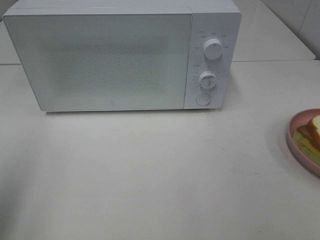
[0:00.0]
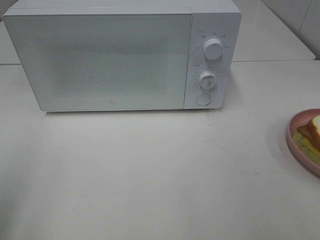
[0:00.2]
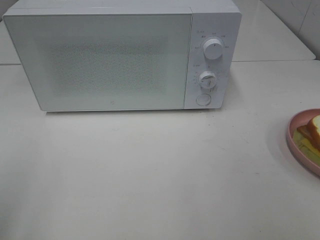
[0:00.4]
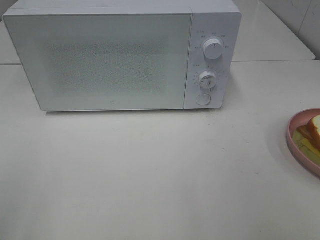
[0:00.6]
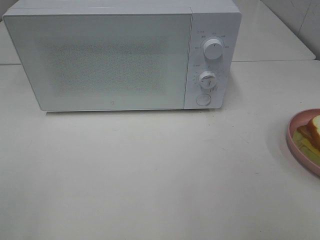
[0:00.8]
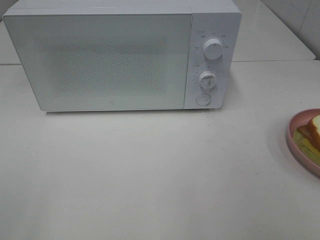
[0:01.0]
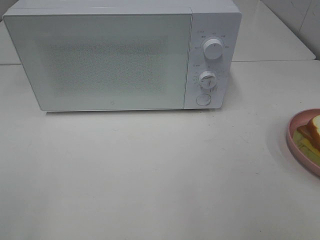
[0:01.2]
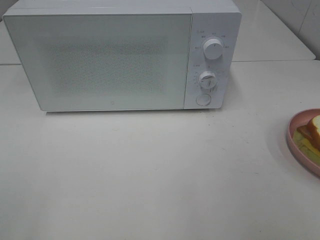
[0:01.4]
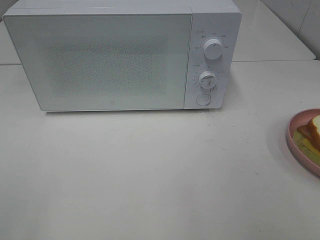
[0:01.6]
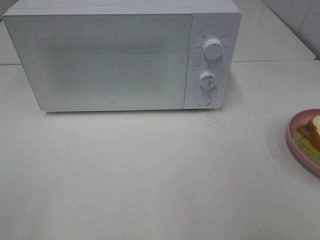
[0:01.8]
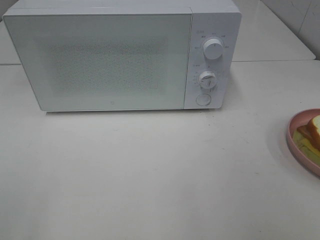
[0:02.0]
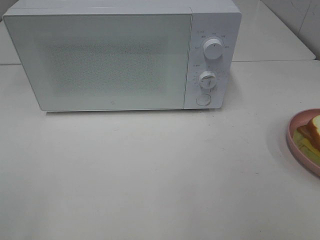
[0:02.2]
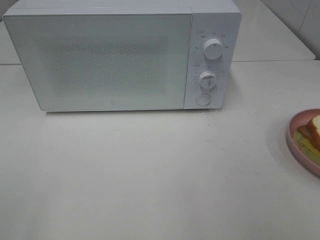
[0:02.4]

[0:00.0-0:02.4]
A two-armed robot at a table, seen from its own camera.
Task of the whole recording: Heat Sandwich.
0:00.0 to 0:01.2: The left gripper is displaced backward by roughly 15 cm.
0:01.2 to 0:02.4: The two grippers keep their place.

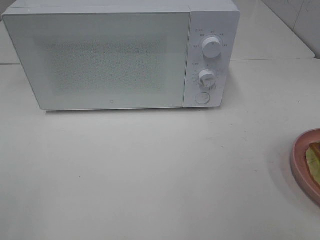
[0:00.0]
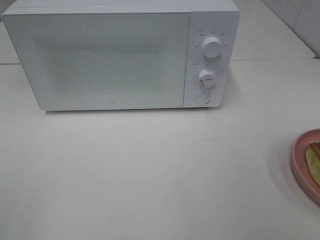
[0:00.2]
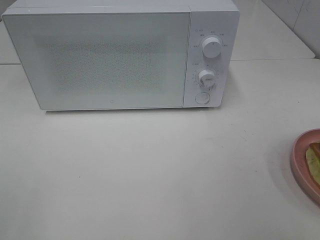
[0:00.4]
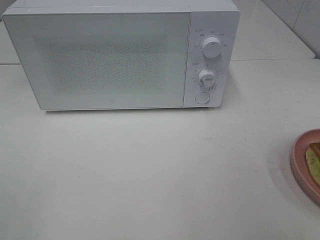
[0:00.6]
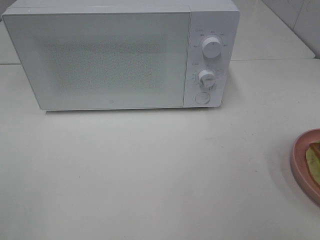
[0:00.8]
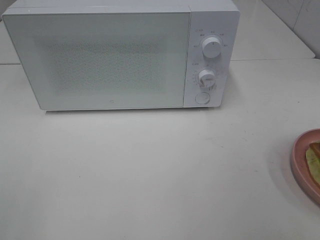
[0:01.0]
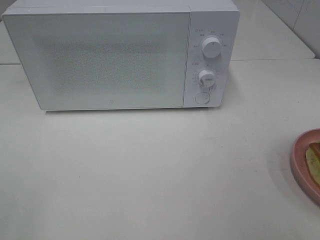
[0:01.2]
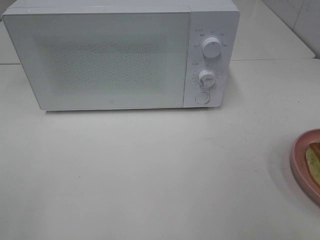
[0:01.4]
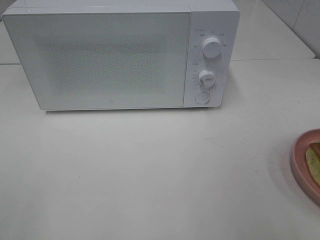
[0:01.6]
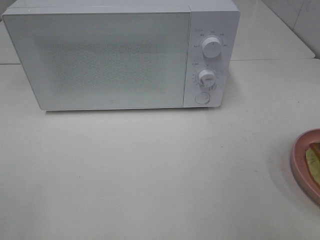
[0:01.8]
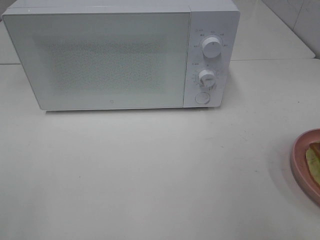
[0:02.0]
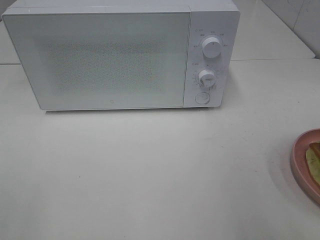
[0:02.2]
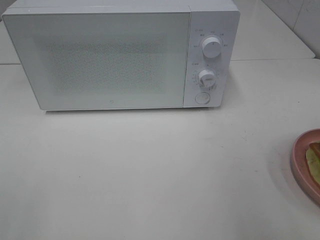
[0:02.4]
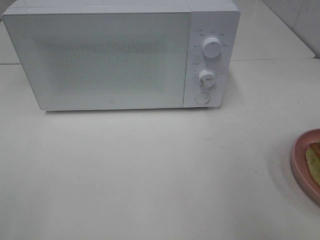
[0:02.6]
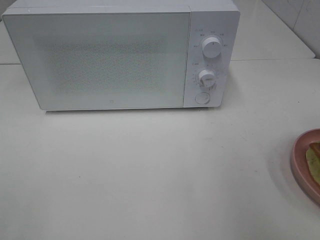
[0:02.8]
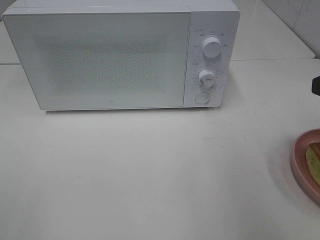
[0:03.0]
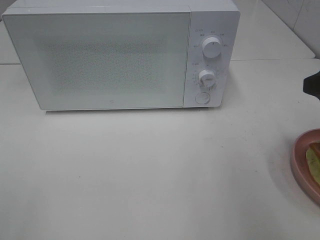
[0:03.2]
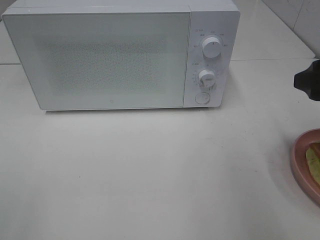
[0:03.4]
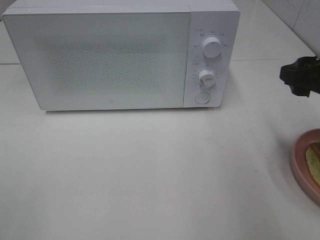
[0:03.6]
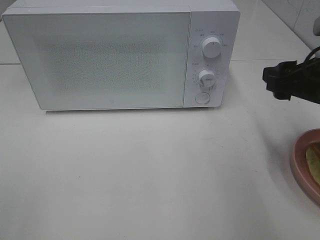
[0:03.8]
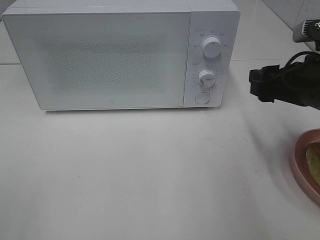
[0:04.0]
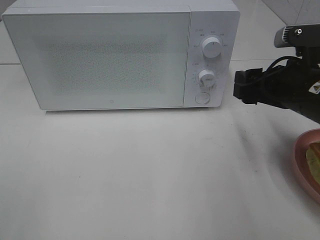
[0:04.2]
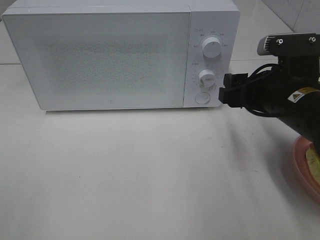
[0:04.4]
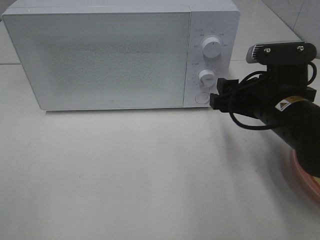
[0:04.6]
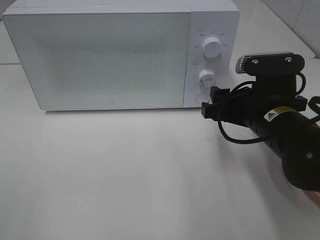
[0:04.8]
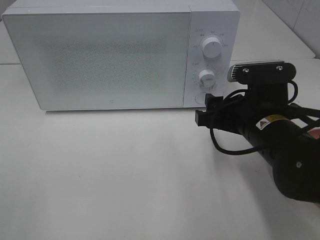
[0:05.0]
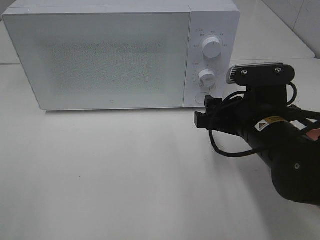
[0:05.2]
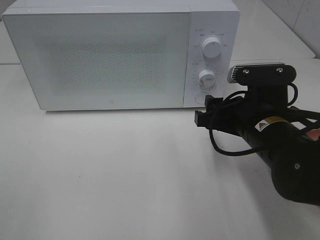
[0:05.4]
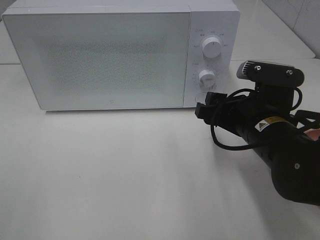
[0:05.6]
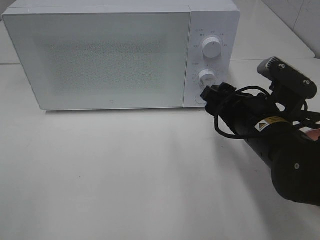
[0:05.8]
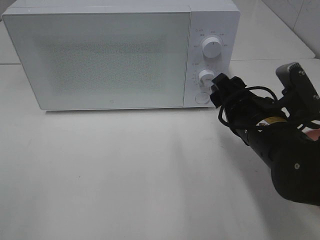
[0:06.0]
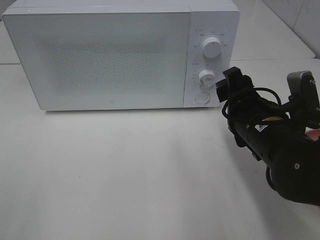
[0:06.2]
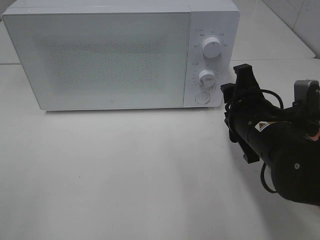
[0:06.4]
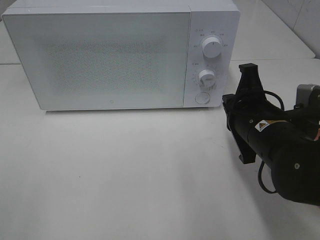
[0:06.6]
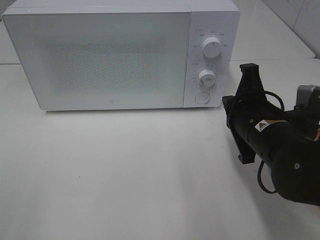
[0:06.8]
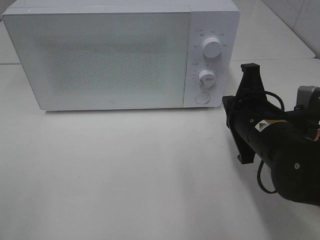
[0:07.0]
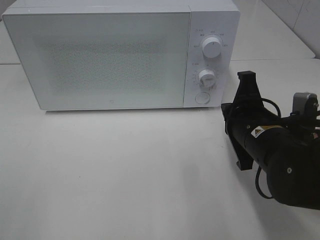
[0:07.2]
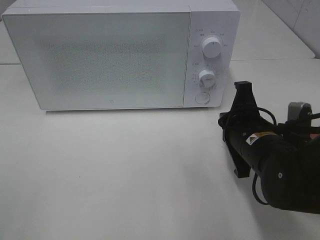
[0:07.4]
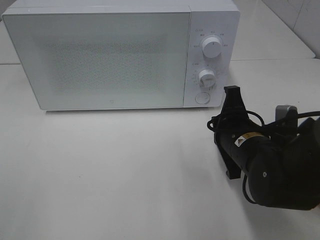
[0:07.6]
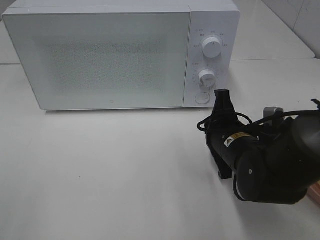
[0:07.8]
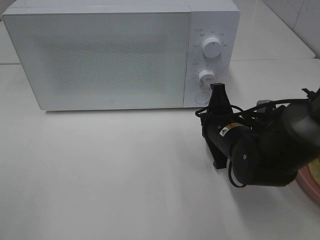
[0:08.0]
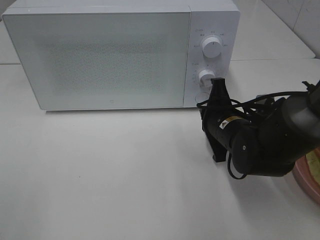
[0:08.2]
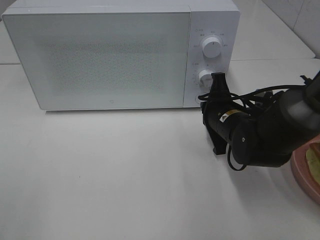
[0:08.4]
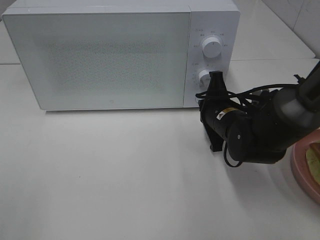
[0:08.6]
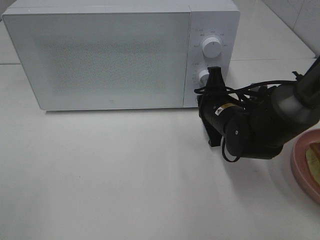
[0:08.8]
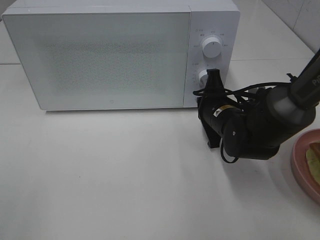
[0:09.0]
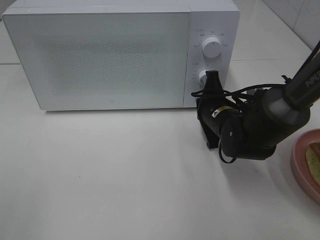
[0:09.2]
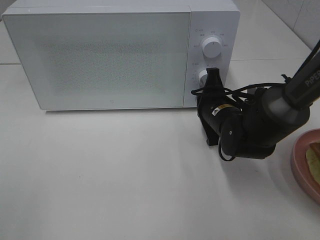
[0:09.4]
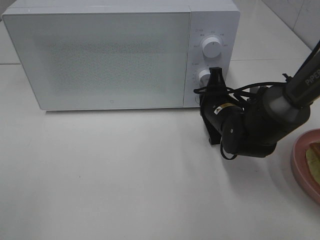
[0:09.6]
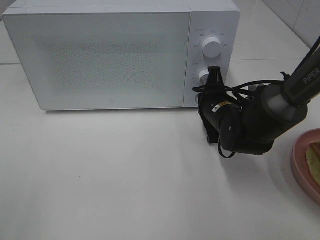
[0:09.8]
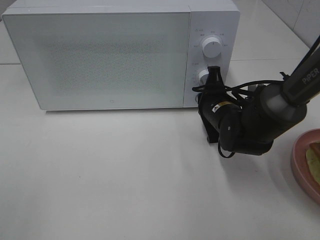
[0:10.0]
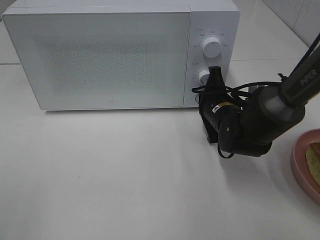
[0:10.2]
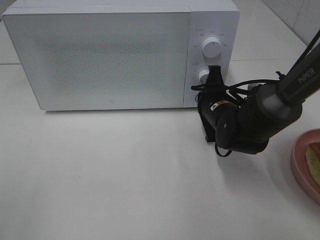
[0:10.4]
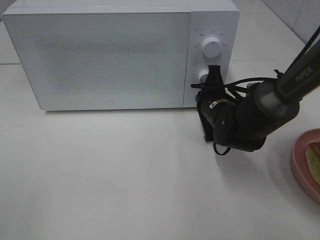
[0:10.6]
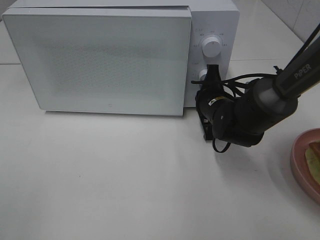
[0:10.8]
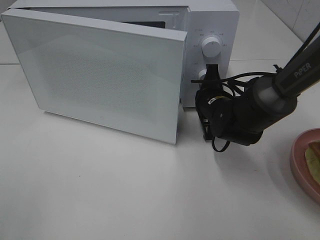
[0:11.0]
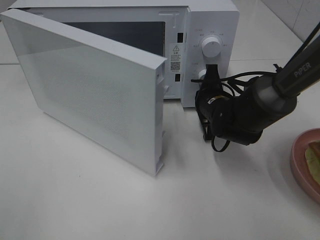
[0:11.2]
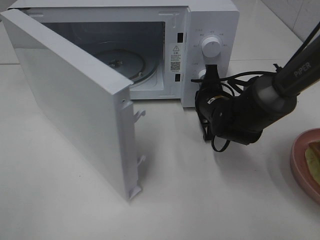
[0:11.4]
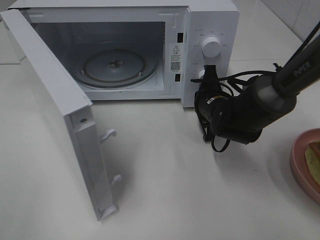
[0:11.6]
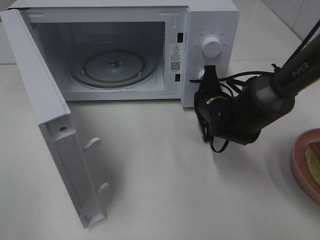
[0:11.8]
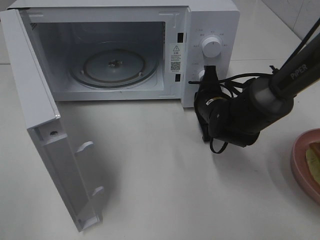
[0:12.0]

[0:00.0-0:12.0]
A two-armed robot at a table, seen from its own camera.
Task of the whole recording: Heat Sandwich.
0:03.0 to 0:04.4: The right gripper travels to the left, downward and forward by roughly 15 cm.
0:04.4 to 0:06.0: The right gripper changes place by some 5 cm.
0:06.0 to 0:07.6: The right gripper closes its fingers.
0:07.6 to 0:09.0: The right gripper moves forward, about 10 cm.
0:09.0 to 0:10.4: There are only small adjustments of the grippers.

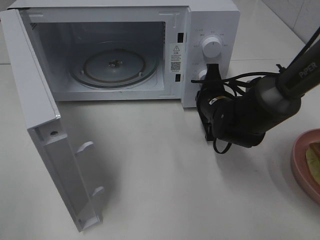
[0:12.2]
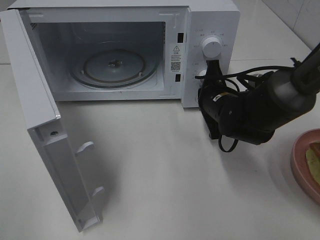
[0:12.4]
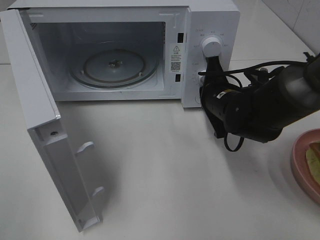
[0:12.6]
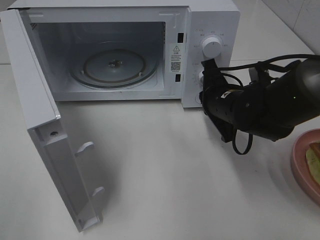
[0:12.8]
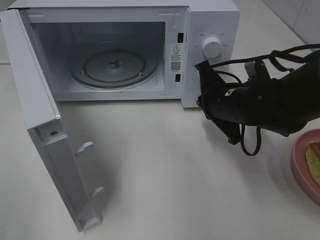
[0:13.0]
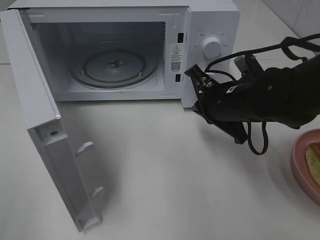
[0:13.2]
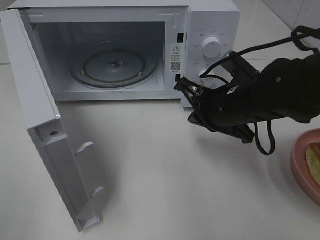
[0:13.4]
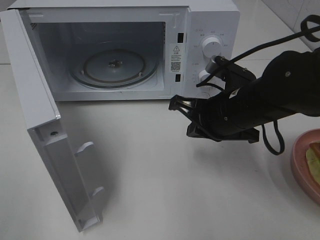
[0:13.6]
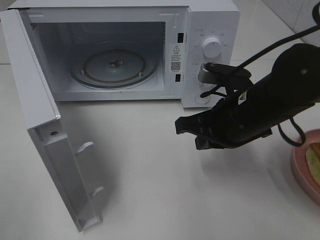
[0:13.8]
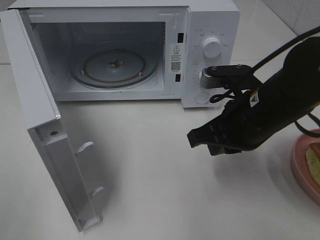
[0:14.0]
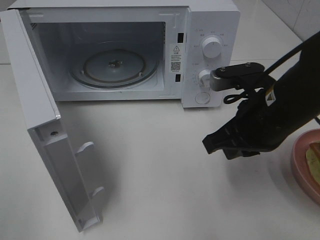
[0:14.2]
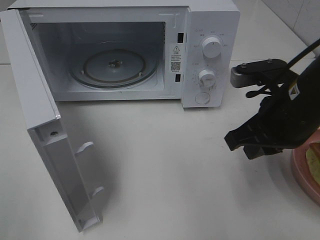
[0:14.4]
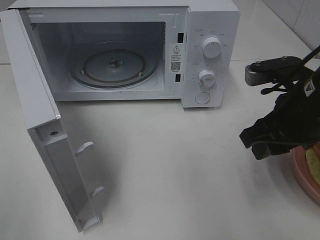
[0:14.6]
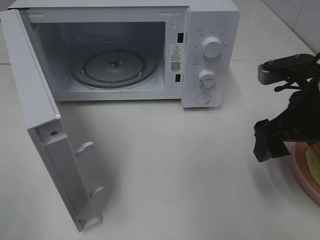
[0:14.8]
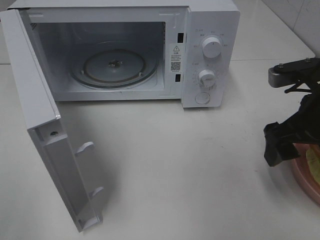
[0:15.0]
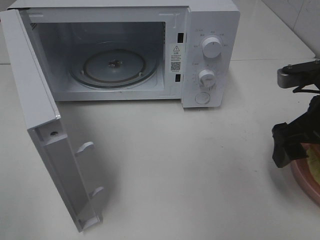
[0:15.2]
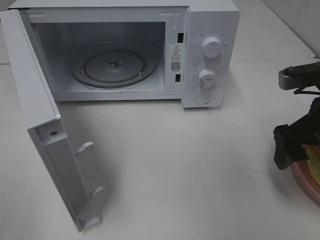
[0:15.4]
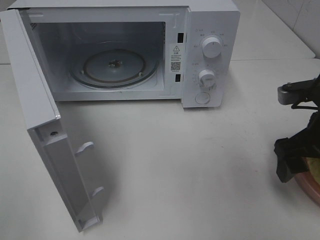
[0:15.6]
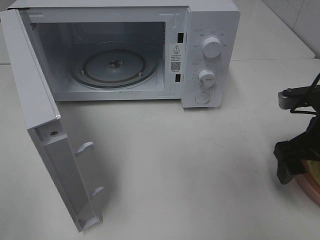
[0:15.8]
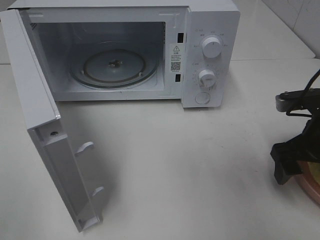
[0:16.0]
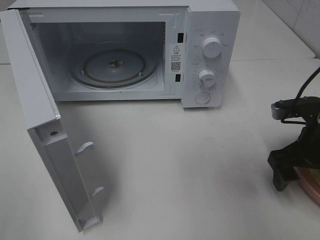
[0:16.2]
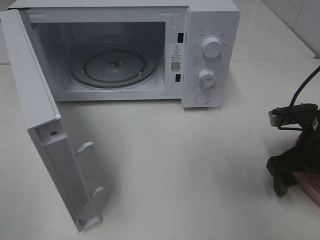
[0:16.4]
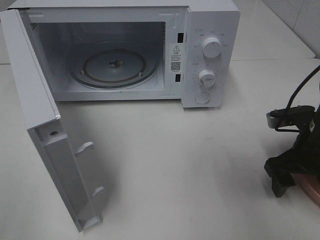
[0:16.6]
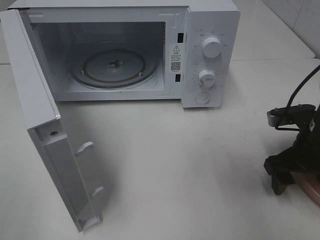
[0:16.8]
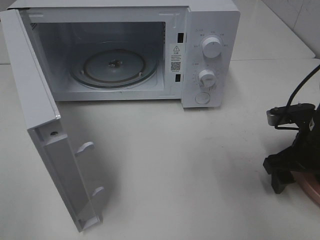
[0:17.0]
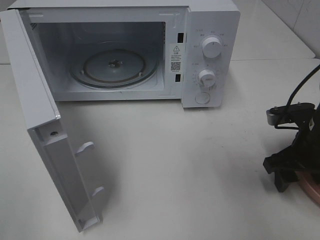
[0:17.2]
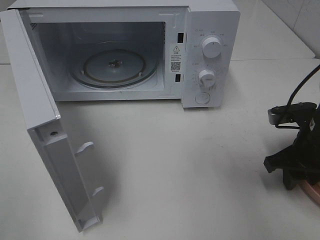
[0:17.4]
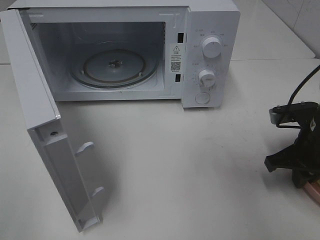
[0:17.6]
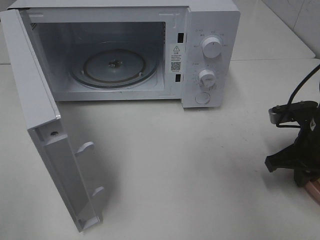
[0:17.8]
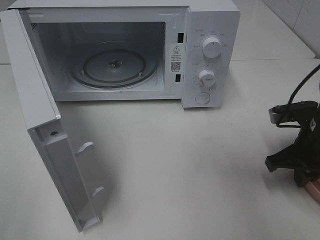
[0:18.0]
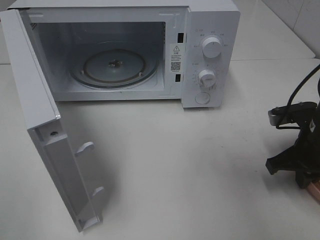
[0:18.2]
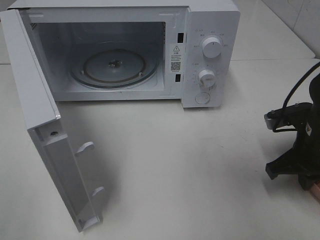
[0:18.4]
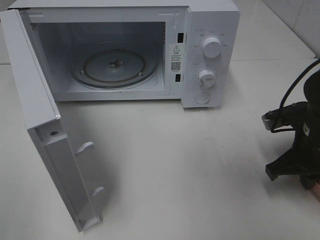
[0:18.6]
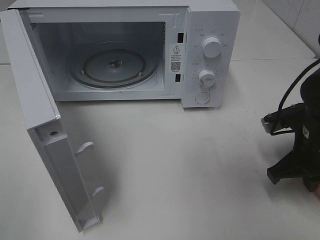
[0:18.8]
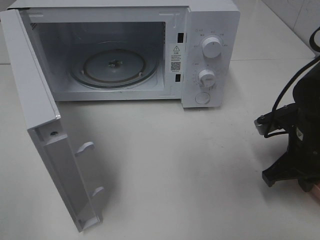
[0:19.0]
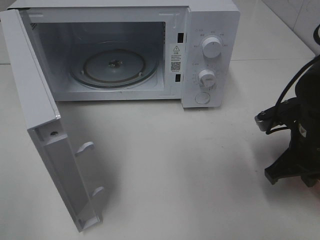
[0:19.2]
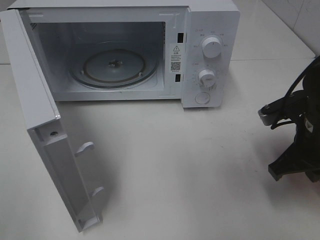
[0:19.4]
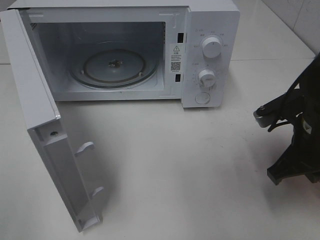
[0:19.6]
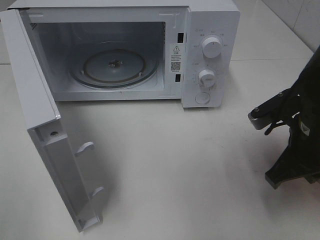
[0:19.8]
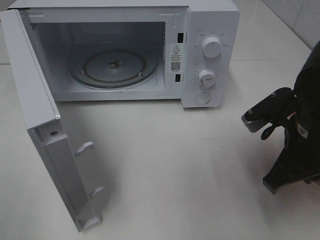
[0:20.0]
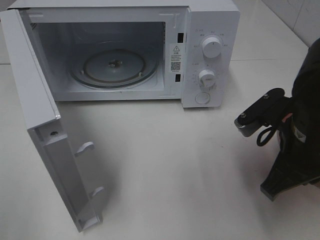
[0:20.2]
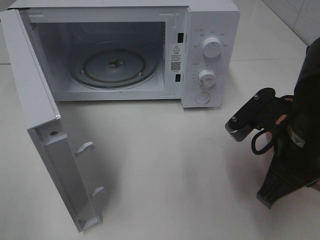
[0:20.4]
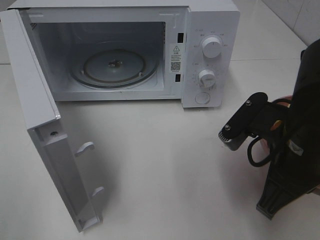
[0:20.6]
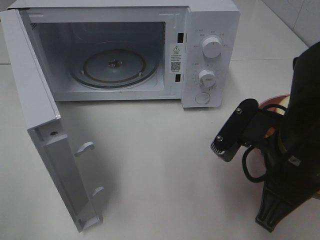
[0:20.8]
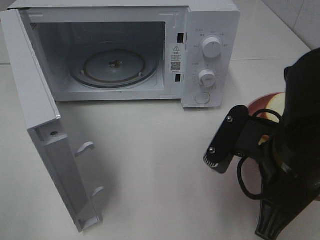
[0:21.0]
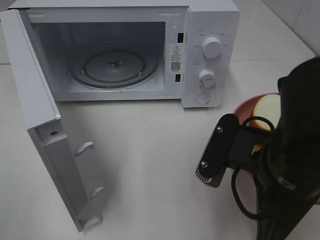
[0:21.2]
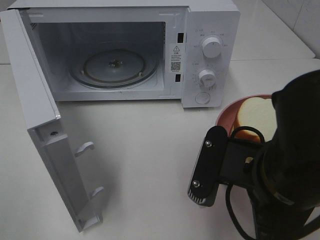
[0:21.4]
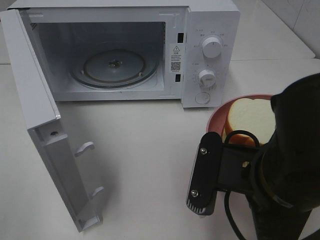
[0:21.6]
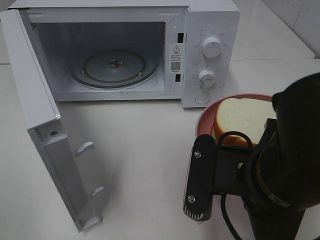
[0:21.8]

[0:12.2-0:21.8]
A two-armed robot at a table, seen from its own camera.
Task of the whole recording: Heat Sandwich.
Step, 0:12.6 to 0:18.4: Right hand: grab the plate with the sandwich.
0:12.2 to 0:13.8: The right gripper is displaced backward and upward by about 15 cm.
0:13.8 to 0:15.4: The right gripper shifts about 10 cm to the right, and opens up.
0:15.4 to 0:17.0: The right gripper is displaced downward by approximately 10 cm.
0:17.0 to 0:18.6: The right gripper closes up.
0:18.6 to 0:20.2: The right gripper travels to the left, upward and backward by some 10 cm.
0:20.2 to 0:21.8: The right gripper heads backward and to the left, covering about 10 cm.
